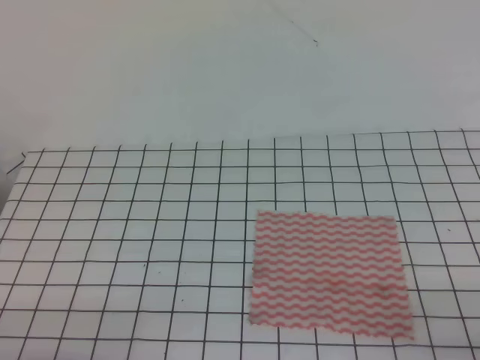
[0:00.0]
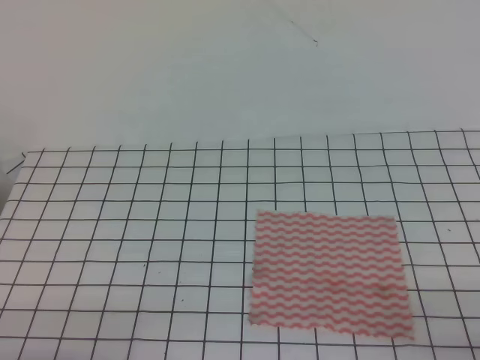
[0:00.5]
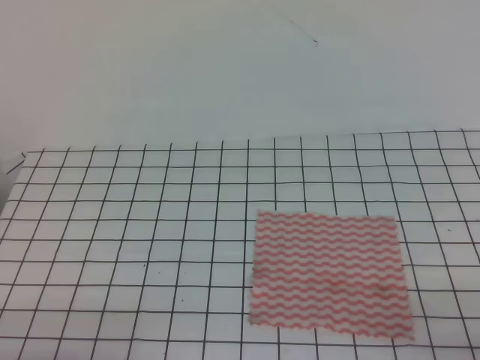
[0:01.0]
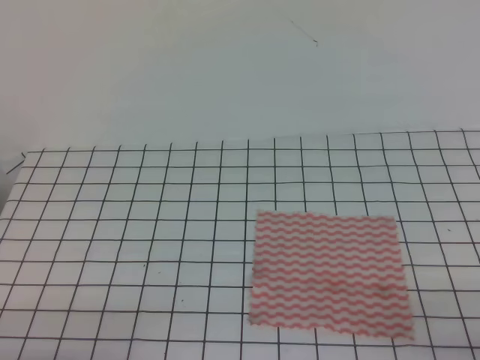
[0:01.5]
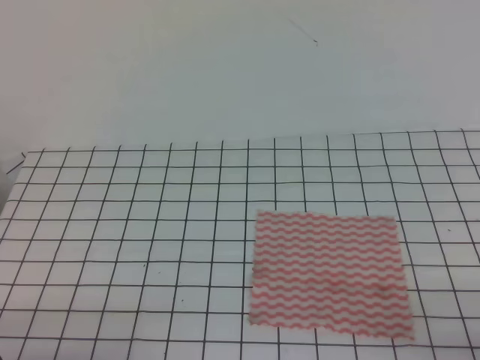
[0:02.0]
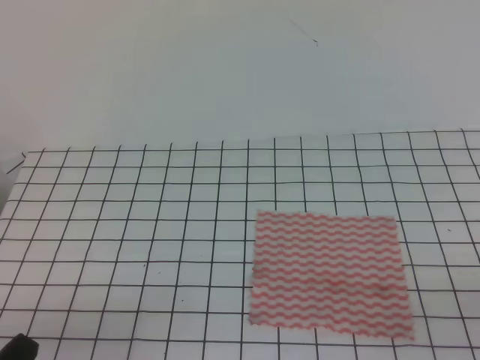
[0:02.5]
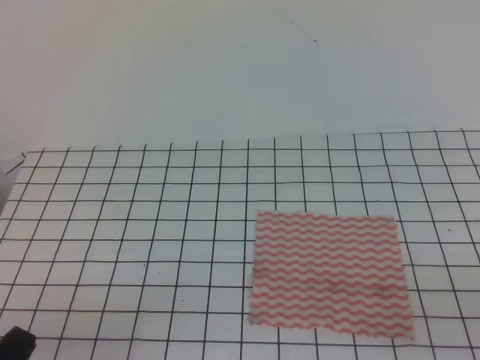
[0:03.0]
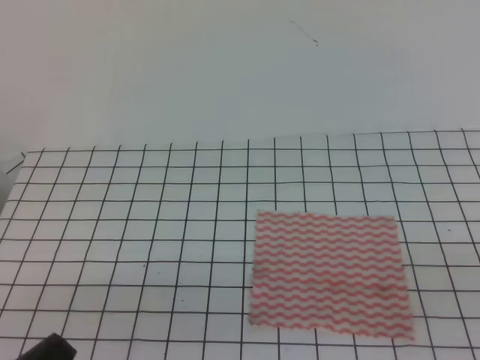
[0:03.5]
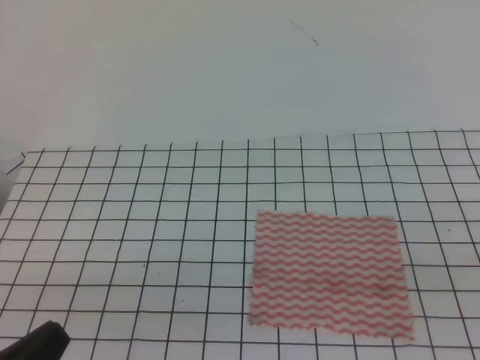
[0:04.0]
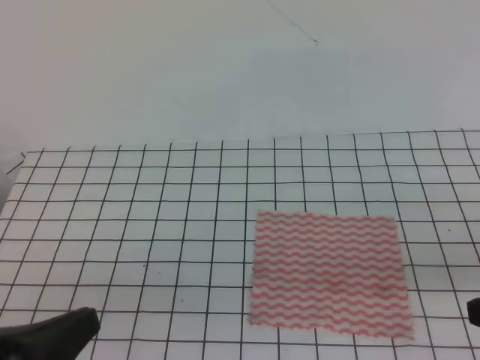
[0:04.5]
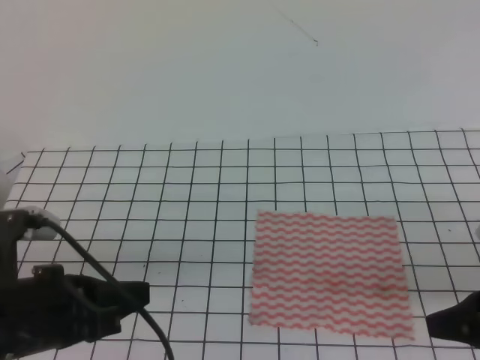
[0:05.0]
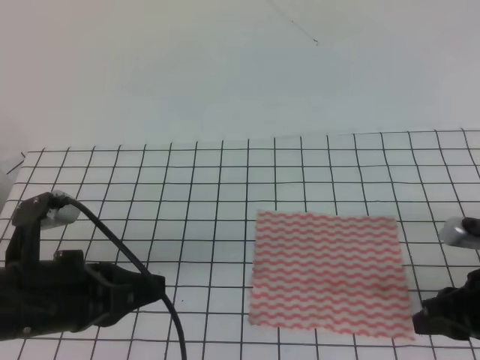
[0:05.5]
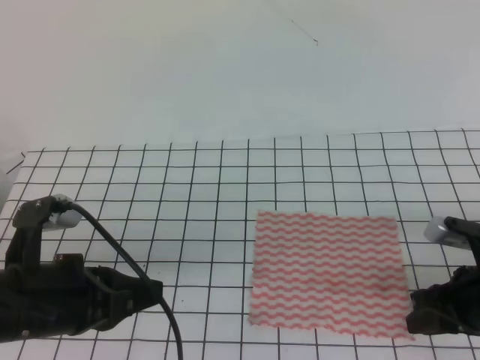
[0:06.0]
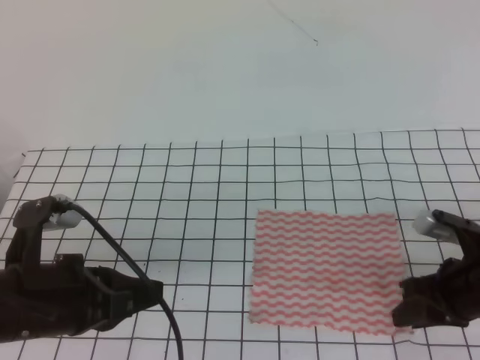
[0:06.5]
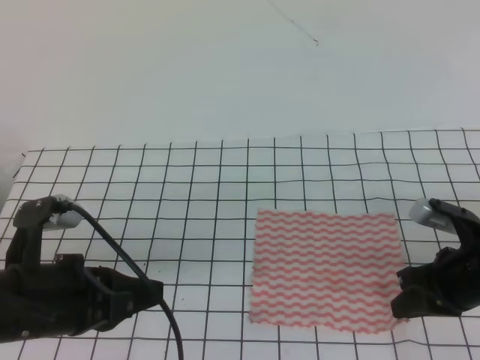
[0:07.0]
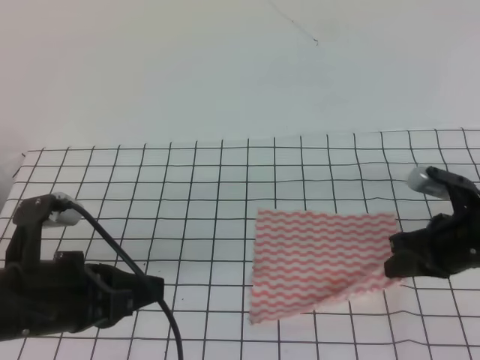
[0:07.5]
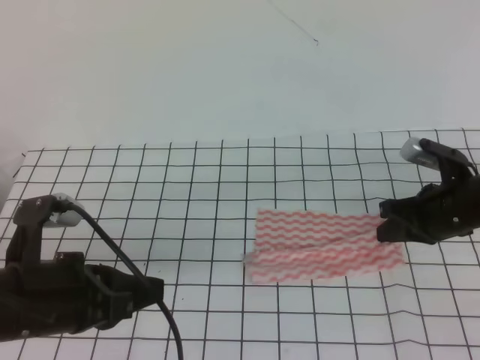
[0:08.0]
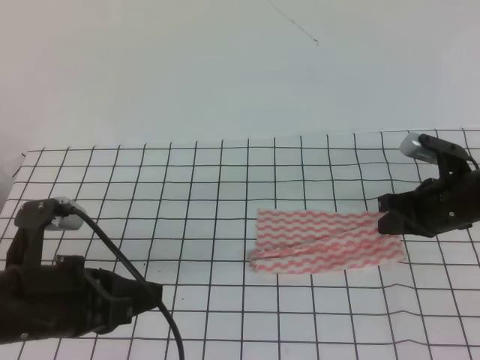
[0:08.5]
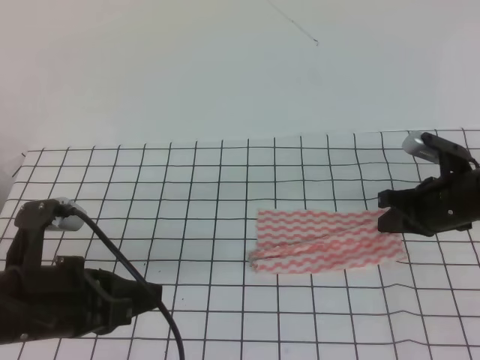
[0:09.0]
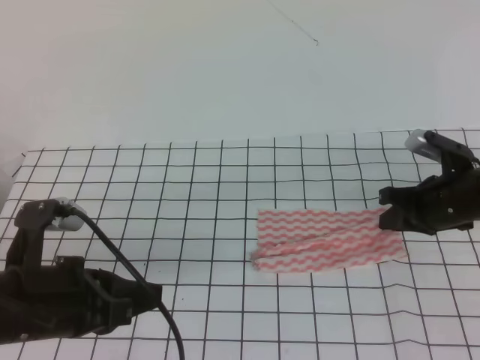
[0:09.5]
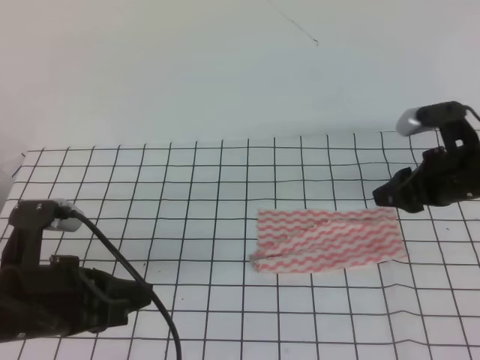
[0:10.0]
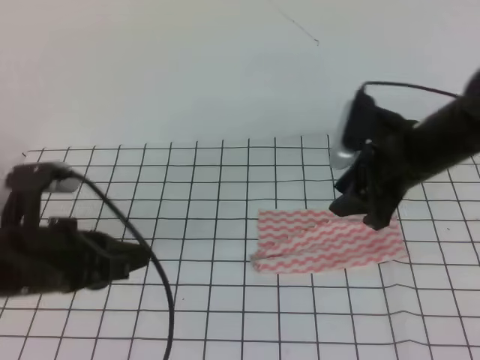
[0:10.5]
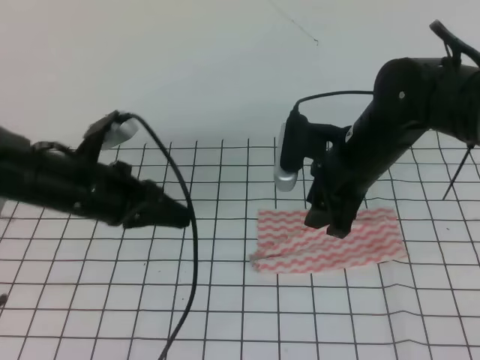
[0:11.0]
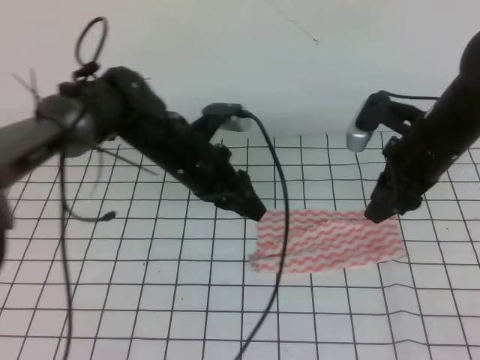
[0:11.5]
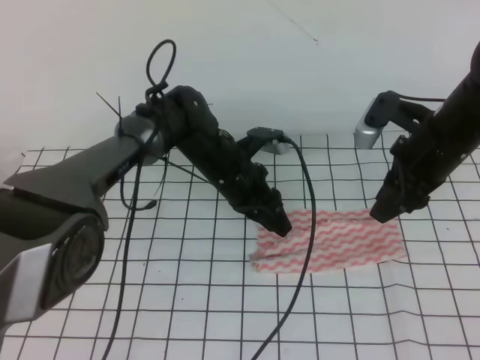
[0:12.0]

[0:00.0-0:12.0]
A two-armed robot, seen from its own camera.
0:02.0 to 0:04.0: The left gripper moves upward, some 5 cm.
0:04.0 to 0:06.0: The right gripper travels forward and downward by about 25 cm, and opens its fingers, while the left gripper goes some 15 cm forward.
0:06.0 to 0:08.0: The right gripper heads forward, covering some 10 cm, and closes.
0:08.0 to 0:10.0: The right gripper opens.
0:10.0 to 0:12.0: The left gripper moves forward and to the right, about 30 cm, and opens. The right gripper travels upward by about 5 cm, and reaches approximately 10 cm to the left, then returns.

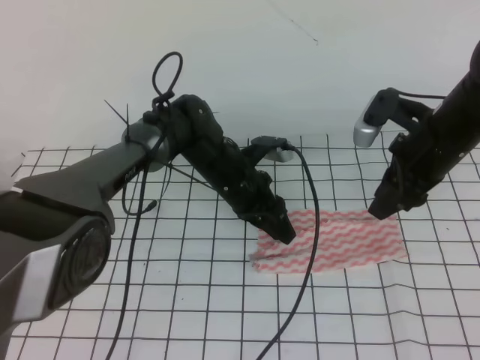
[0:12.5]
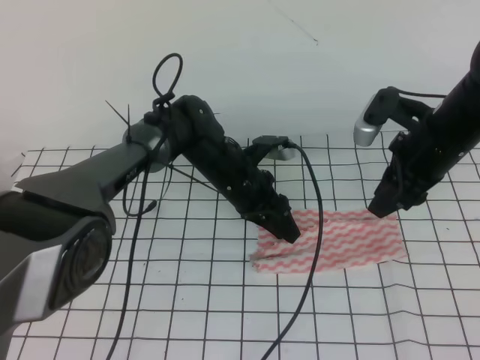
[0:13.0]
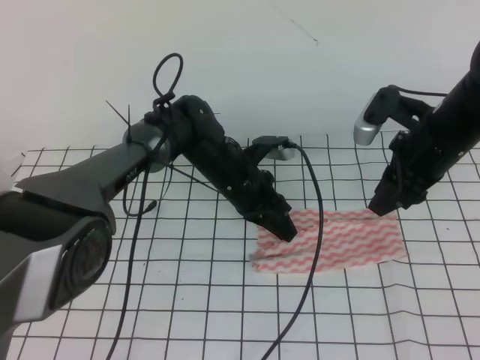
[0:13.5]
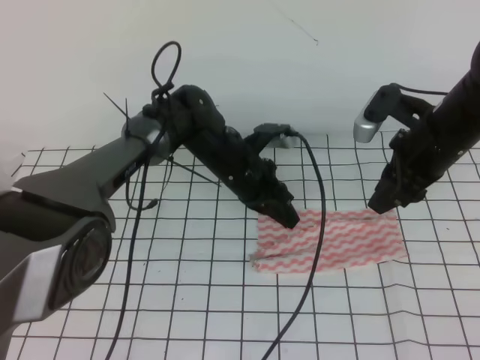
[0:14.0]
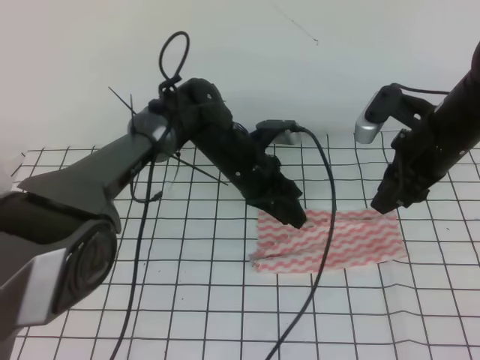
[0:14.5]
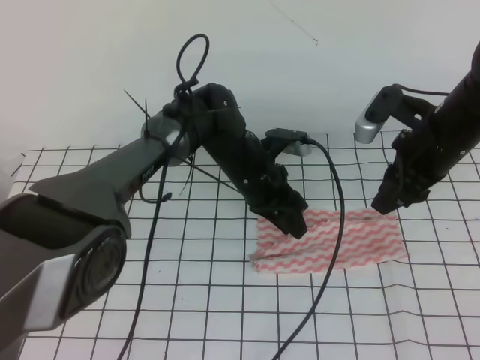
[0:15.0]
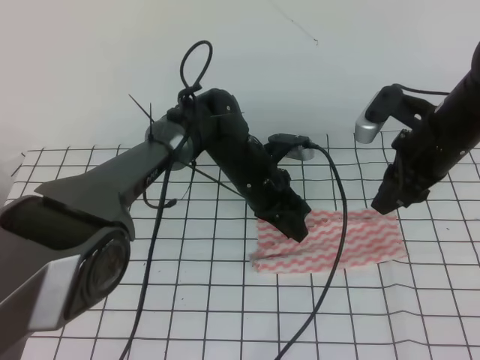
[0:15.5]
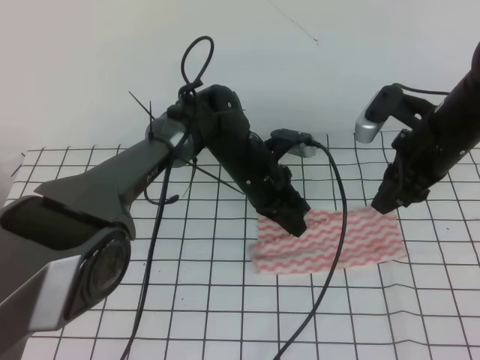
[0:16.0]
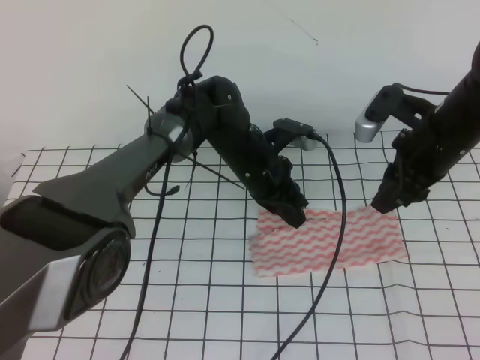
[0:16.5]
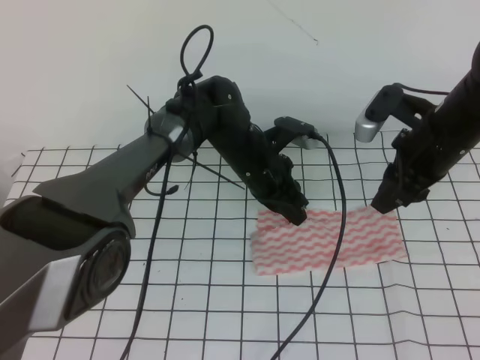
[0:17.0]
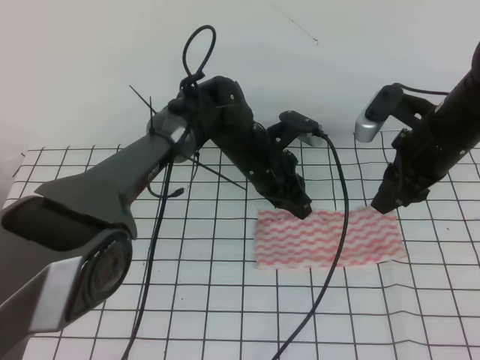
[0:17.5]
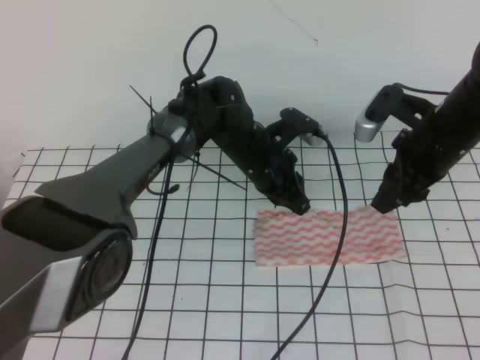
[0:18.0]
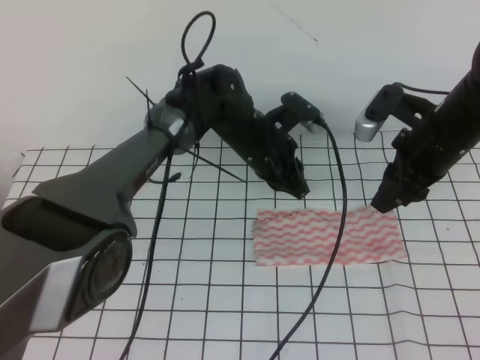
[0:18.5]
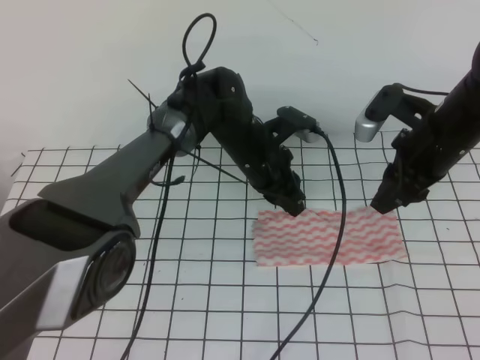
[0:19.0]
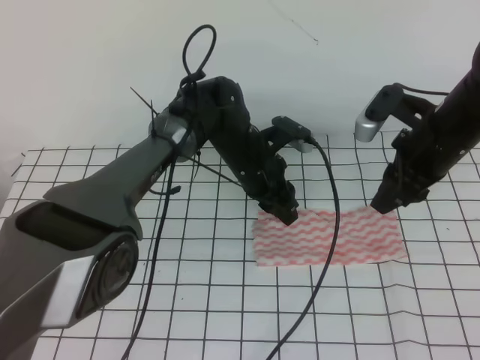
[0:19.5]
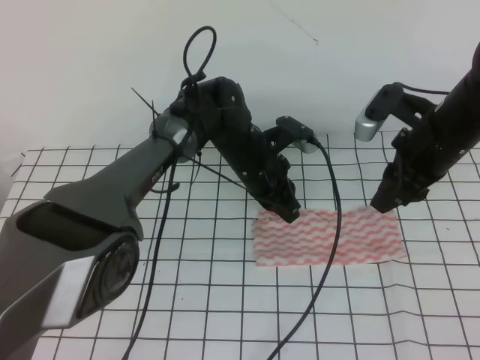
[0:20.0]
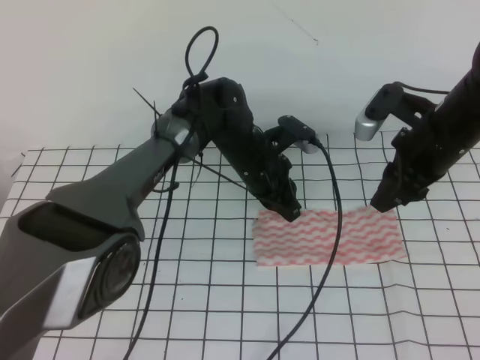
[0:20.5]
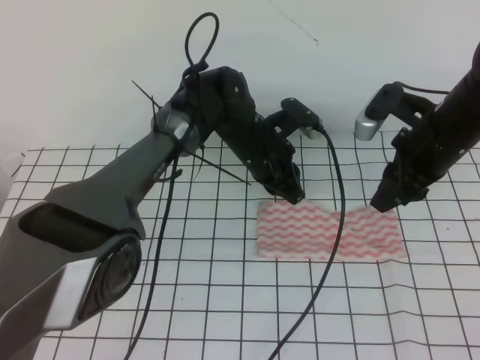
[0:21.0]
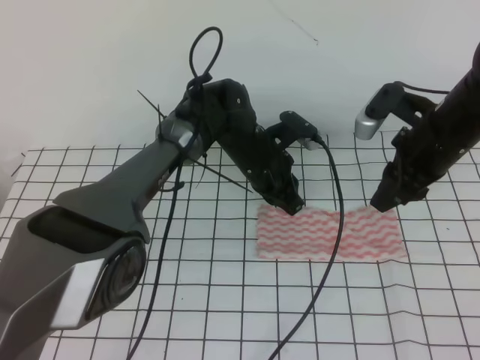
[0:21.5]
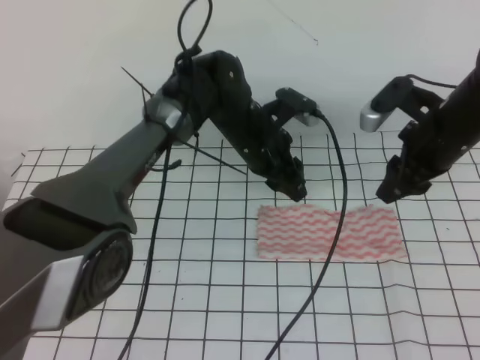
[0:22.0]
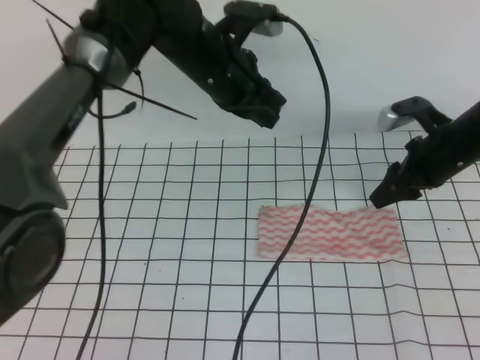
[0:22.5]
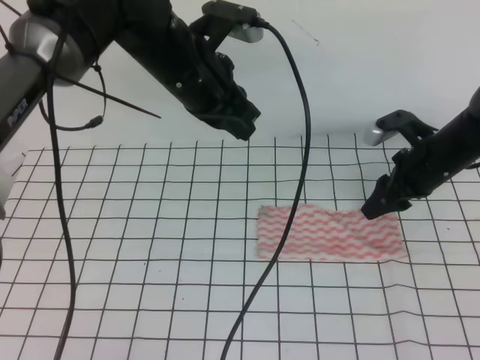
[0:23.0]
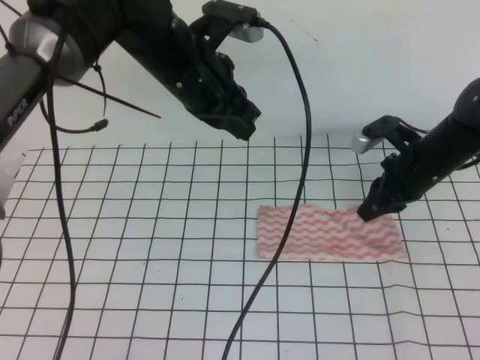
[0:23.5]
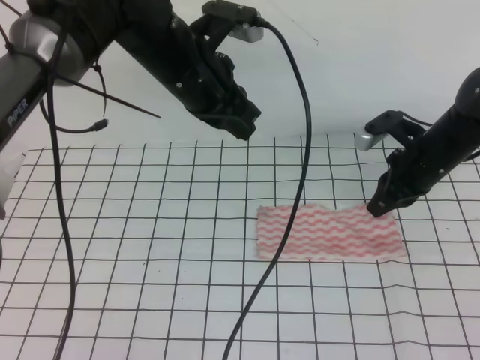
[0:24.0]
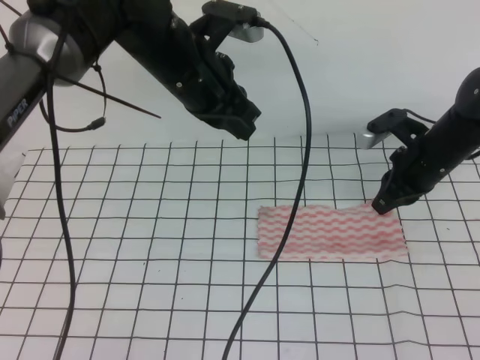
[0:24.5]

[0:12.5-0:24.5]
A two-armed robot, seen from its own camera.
0:12.5 to 0:14.5: The left gripper closes, then opens again.
0:14.5 to 0:16.5: The left gripper closes its fingers.
0:16.5 to 0:18.5: The grippers stay close to where they were, moving slightly.
0:18.5 to 0:20.5: The left gripper opens and closes again.
0:20.5 to 0:22.5: The left gripper heads upward, covering about 15 cm, and opens, then closes once more, while the right gripper travels downward by roughly 5 cm.
0:22.5 to 0:24.5: The right gripper closes up, while the left gripper changes place by some 5 cm.

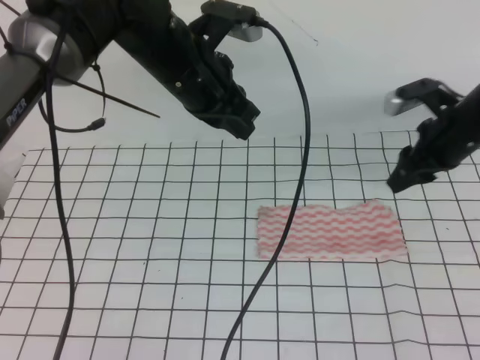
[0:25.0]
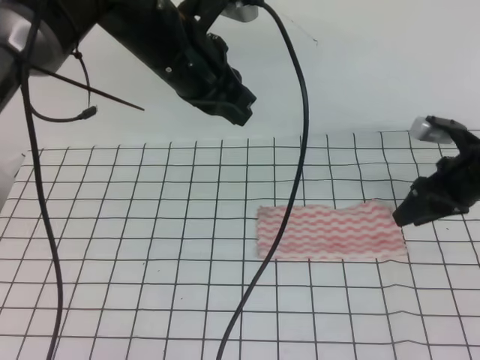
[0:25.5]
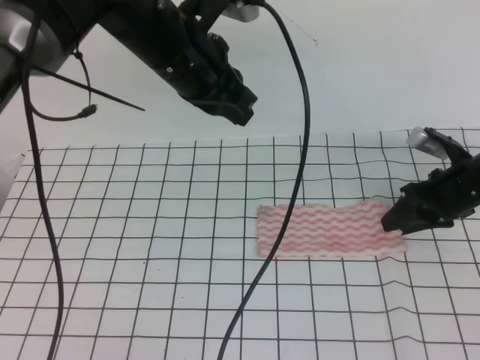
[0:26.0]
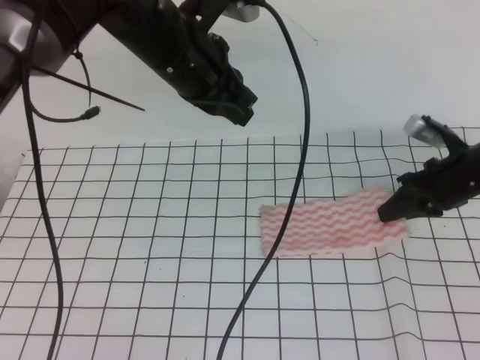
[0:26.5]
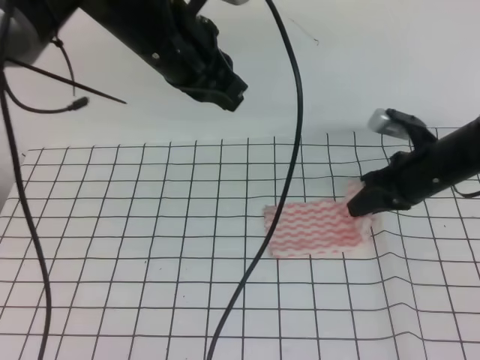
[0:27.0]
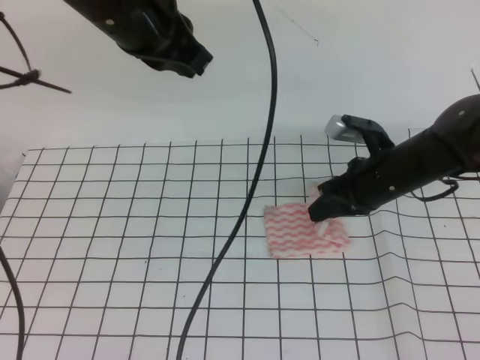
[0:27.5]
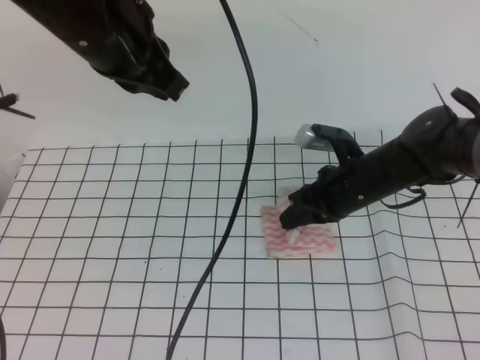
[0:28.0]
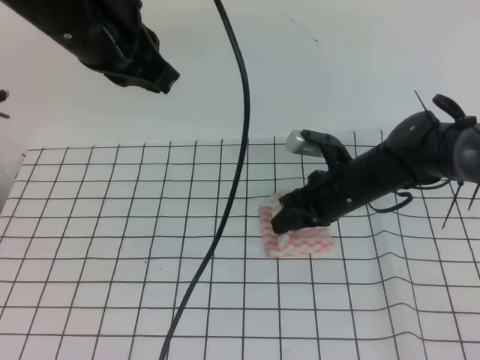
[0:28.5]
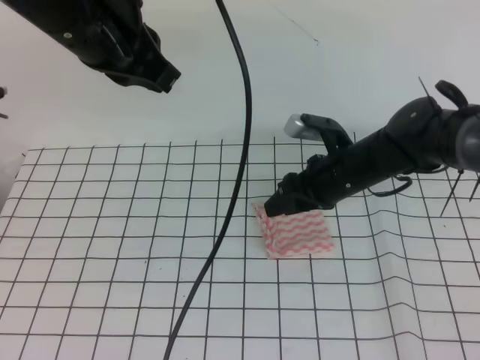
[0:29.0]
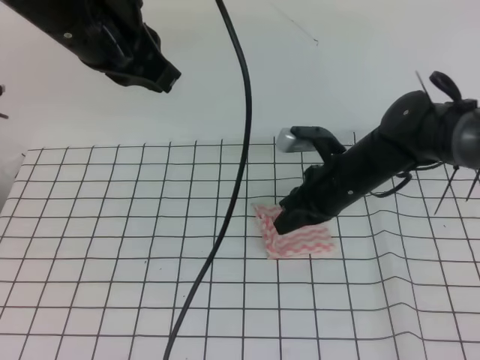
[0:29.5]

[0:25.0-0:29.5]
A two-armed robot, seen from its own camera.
0:25.0 to 0:27.0: The right gripper ends up some 5 cm from where it was, and closes.
0:27.0 to 0:29.5: The left gripper goes approximately 10 cm backward, upward and to the left, while the right gripper is displaced to the left by roughly 10 cm, and opens, then closes once more.
